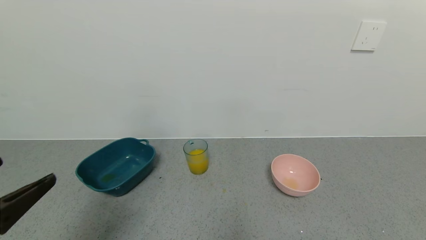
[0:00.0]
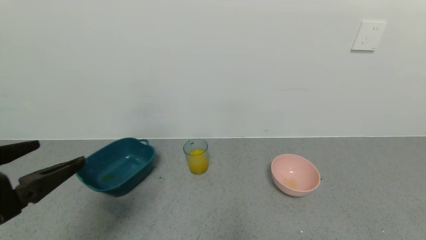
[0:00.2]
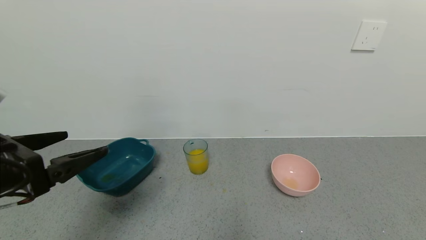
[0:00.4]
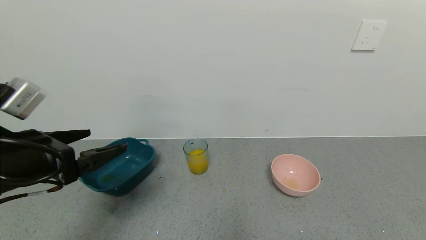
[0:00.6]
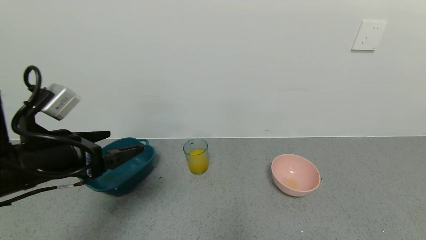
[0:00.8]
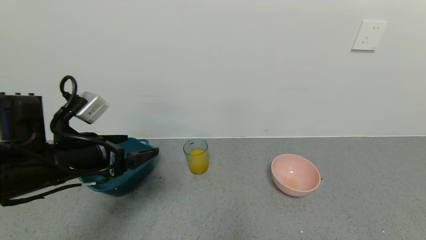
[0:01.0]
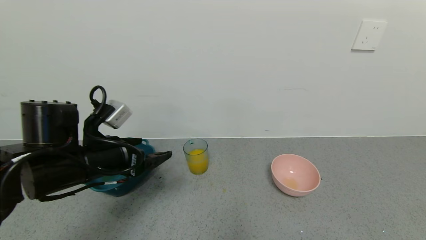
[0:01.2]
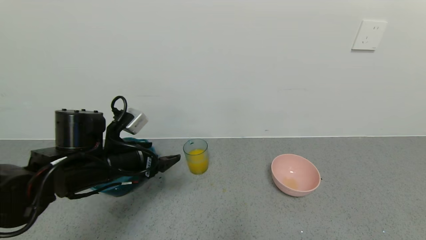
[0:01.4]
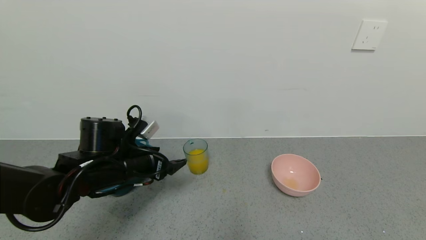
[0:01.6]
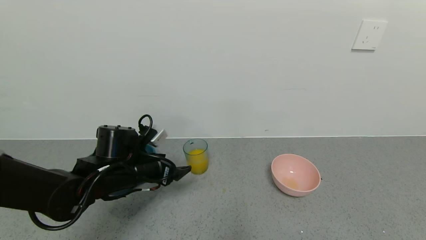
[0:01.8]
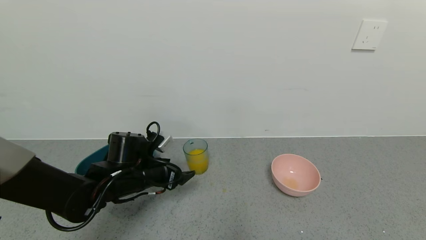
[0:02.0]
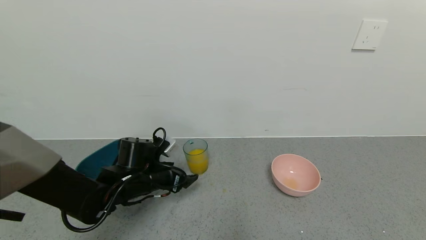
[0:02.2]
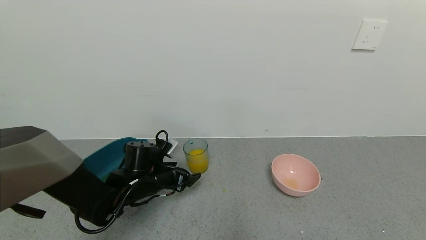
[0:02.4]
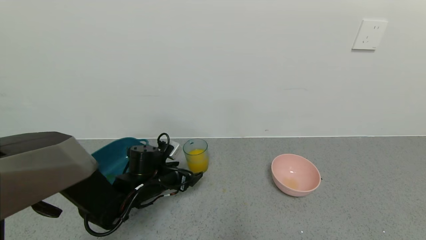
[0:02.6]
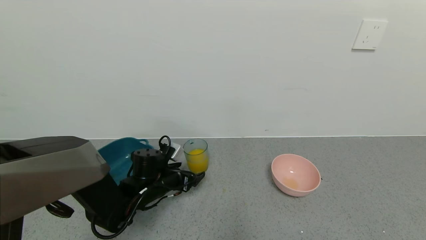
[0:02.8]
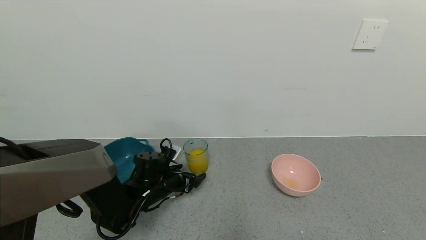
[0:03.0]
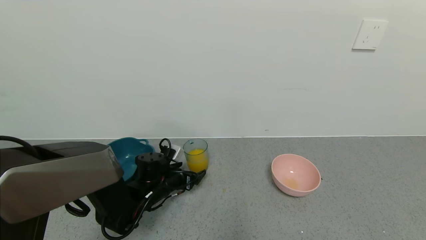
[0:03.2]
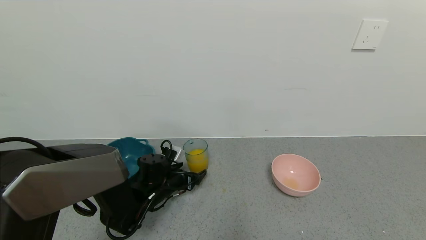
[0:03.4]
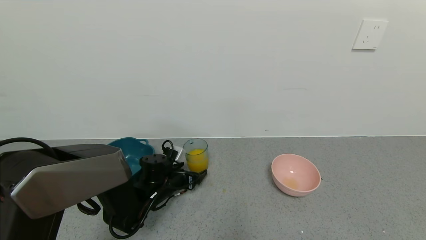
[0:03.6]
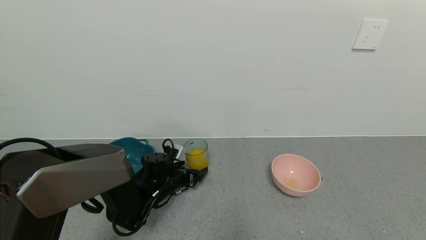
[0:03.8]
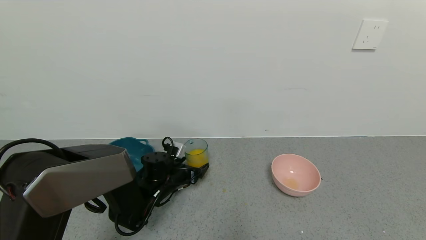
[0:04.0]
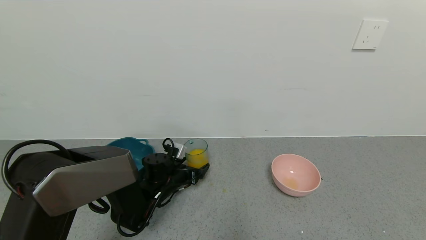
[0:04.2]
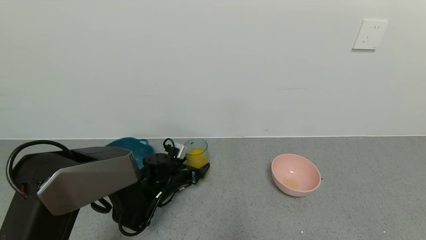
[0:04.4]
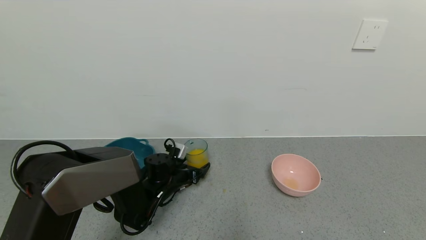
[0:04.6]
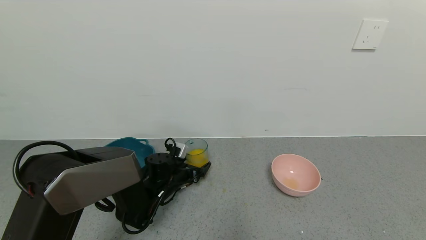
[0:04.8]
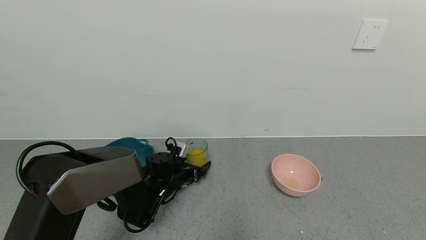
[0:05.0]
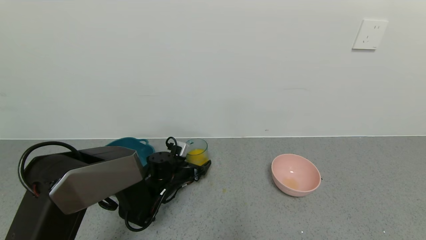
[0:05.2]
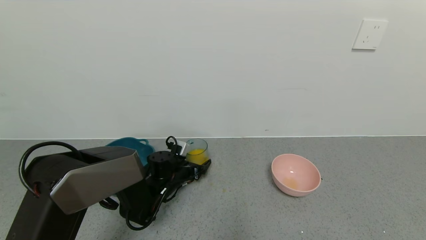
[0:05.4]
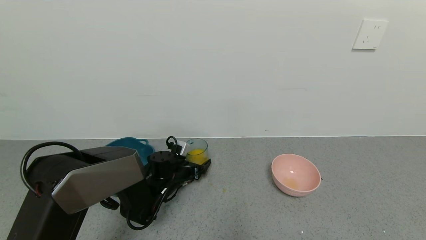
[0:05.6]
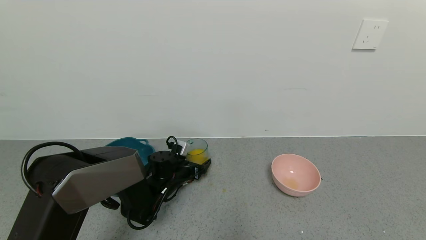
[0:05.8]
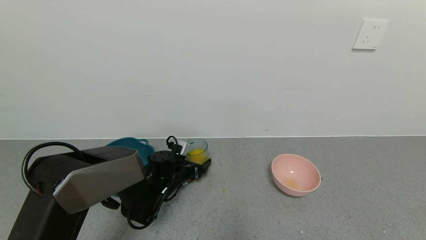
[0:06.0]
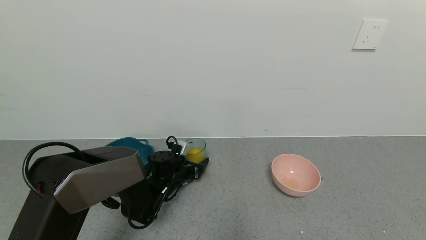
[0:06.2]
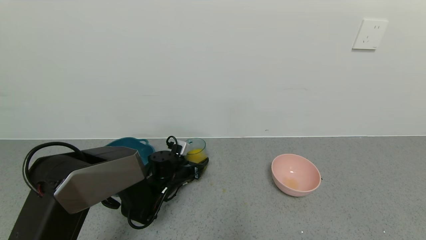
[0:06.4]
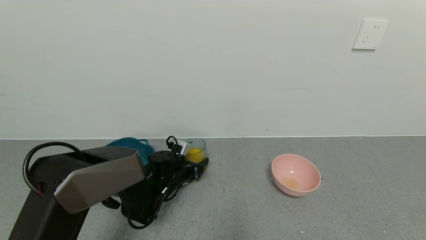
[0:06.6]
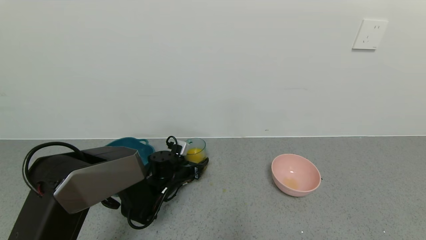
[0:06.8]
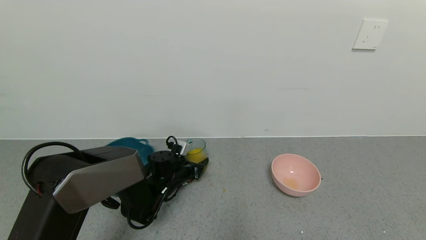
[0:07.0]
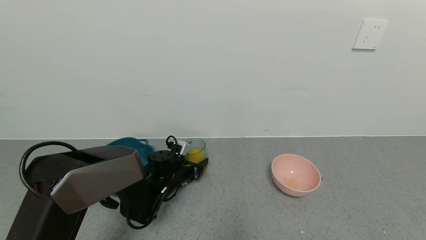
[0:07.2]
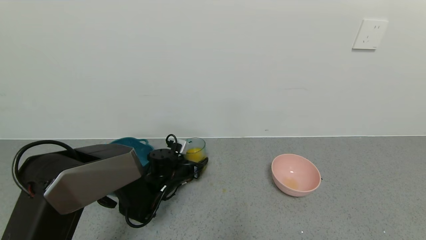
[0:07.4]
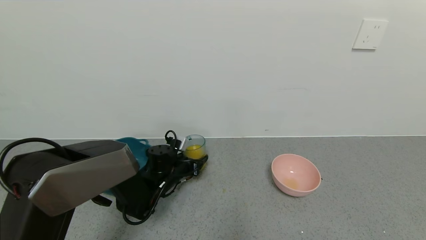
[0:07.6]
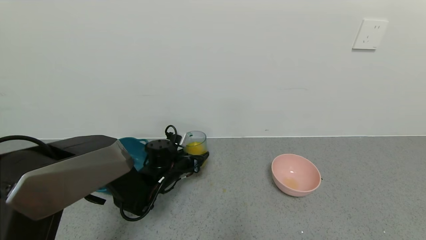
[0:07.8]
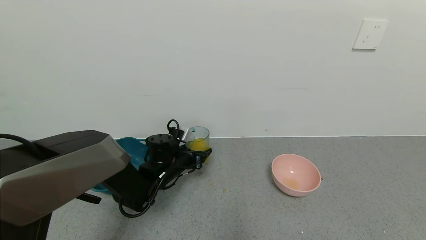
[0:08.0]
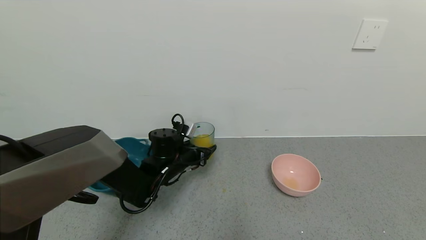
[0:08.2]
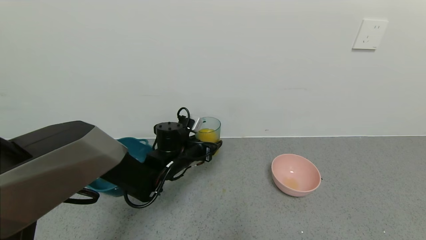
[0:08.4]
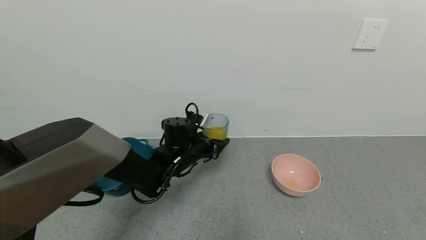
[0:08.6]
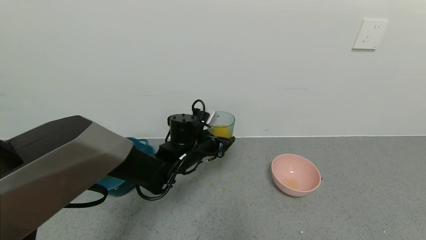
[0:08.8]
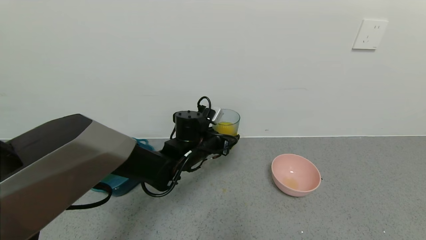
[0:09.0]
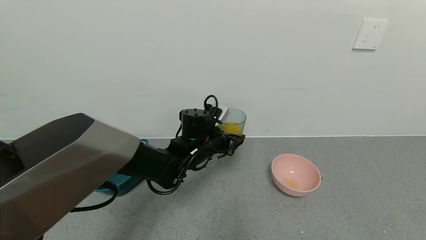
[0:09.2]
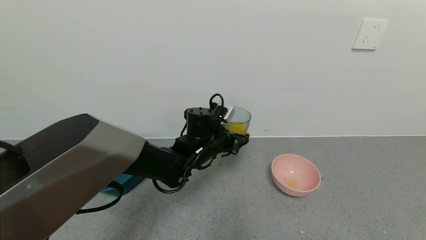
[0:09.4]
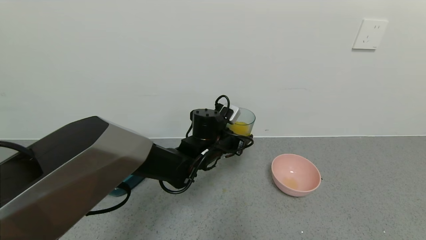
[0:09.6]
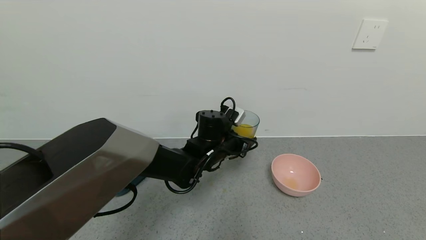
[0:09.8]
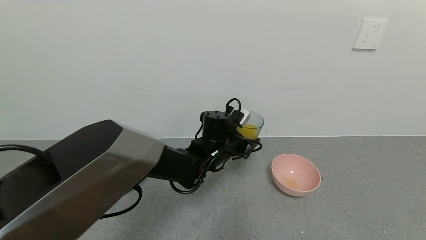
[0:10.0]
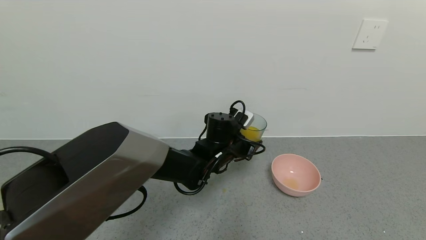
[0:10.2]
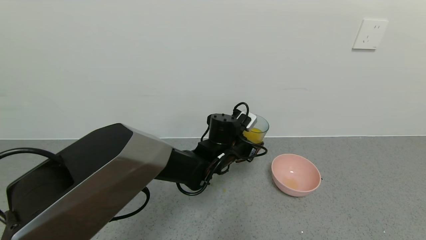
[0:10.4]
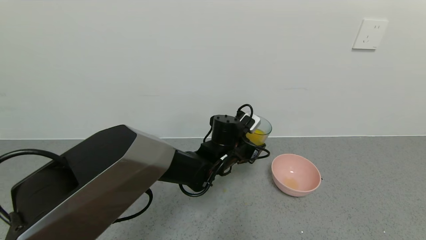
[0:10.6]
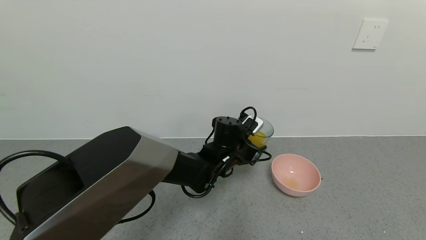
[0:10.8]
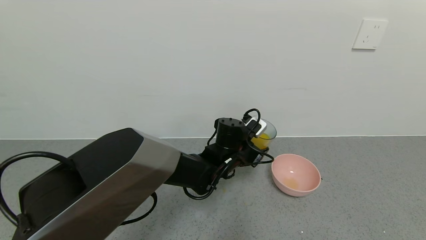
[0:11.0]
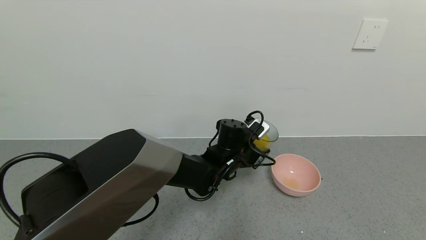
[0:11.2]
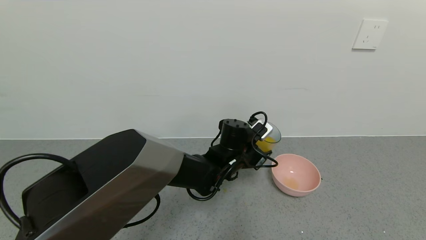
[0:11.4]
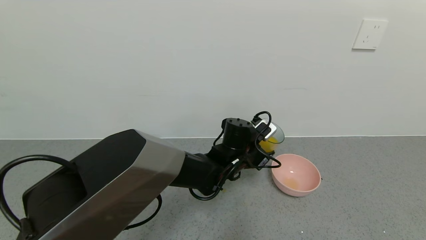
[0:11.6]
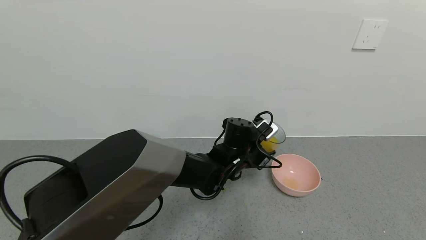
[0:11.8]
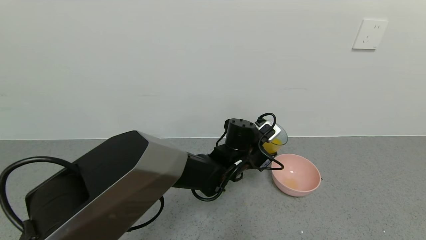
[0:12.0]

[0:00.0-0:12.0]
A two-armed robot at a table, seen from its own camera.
Task of the whole recording: use a gripper to pick up the cup and pour the liquid into a bowl or tray.
Step, 0:00.0 to 0:06.4: Grasp the glass of orange juice with the left gripper.
0:00.0 to 0:01.6: The left gripper travels forward and downward by approximately 25 cm.
0:01.6 to 0:03.0: The left gripper shifts about 10 cm downward.
0:03.0 to 0:06.0: The grippers stay close to where they were, moving slightly.
0:06.0 to 0:07.6: The left gripper closes its fingers.
0:07.6 to 0:09.0: The left gripper is displaced upward and to the right by some 15 cm.
0:09.0 to 0:10.4: The left gripper is displaced to the right by roughly 5 cm.
0:10.4 to 0:12.0: The grippers make only small movements.

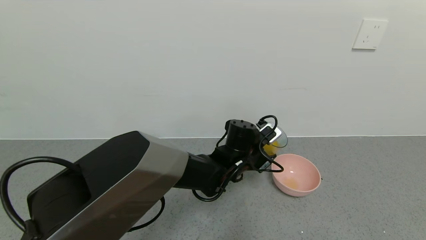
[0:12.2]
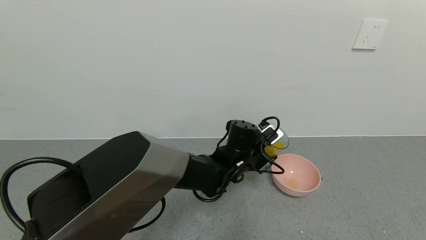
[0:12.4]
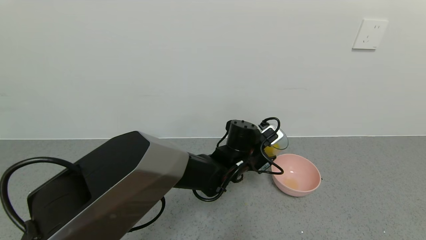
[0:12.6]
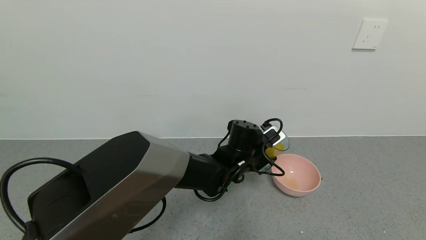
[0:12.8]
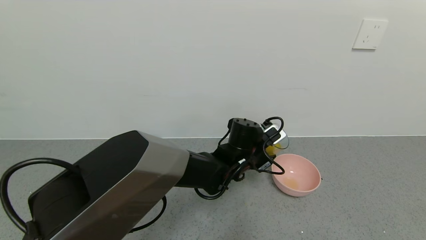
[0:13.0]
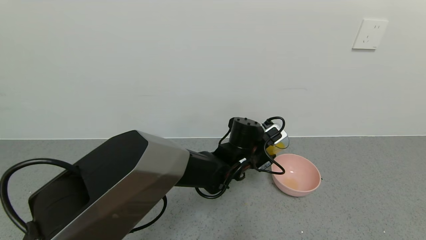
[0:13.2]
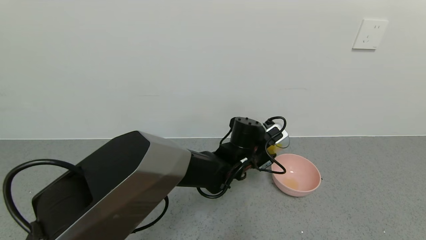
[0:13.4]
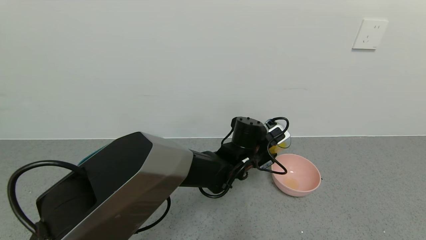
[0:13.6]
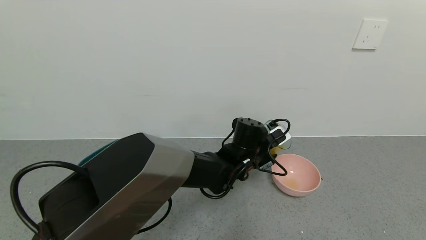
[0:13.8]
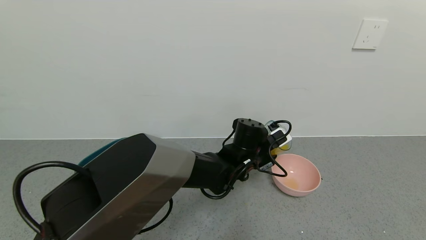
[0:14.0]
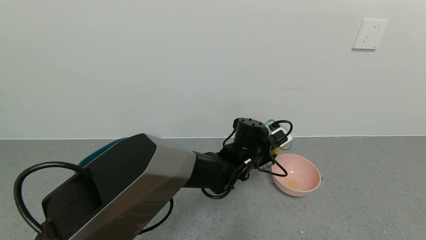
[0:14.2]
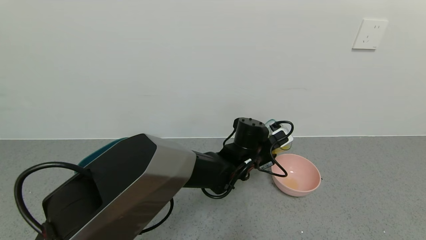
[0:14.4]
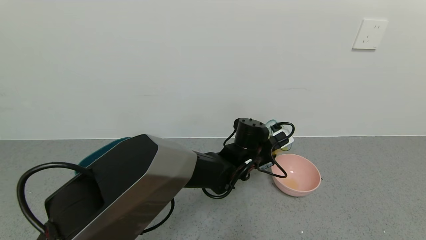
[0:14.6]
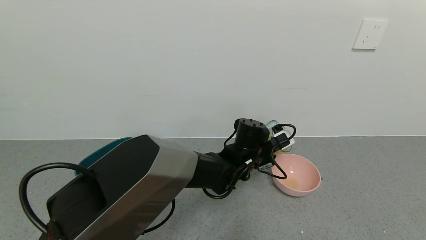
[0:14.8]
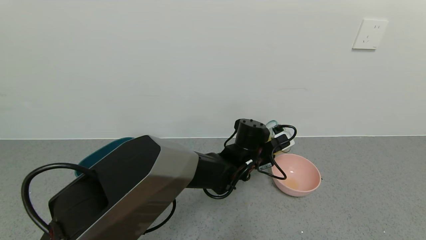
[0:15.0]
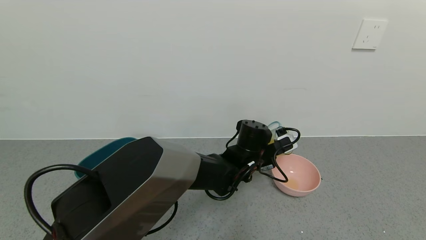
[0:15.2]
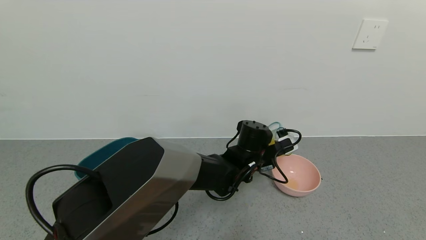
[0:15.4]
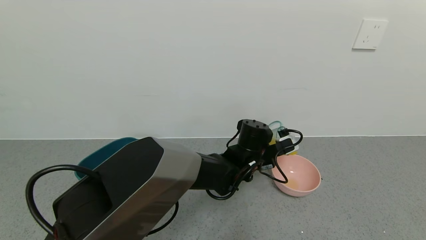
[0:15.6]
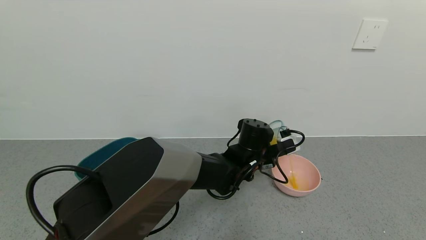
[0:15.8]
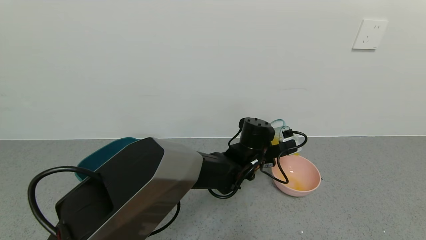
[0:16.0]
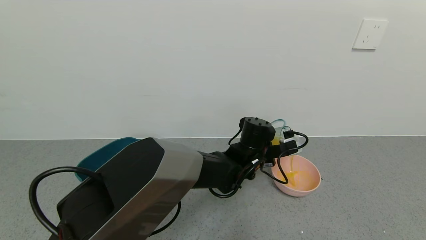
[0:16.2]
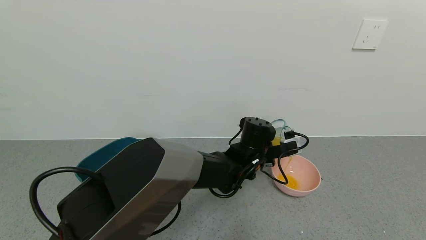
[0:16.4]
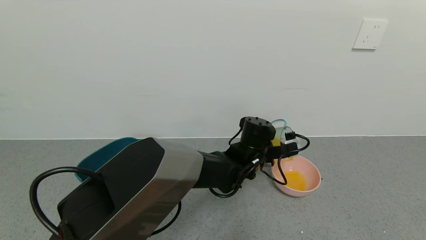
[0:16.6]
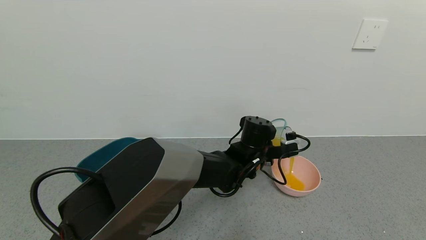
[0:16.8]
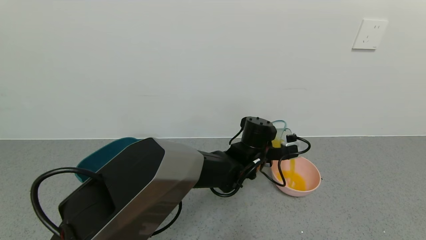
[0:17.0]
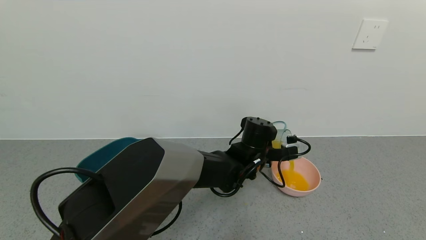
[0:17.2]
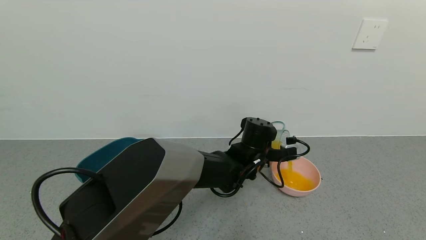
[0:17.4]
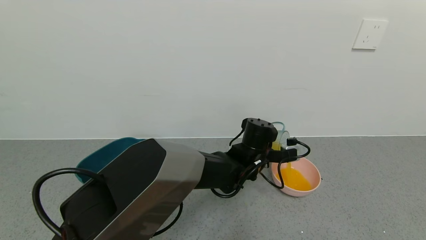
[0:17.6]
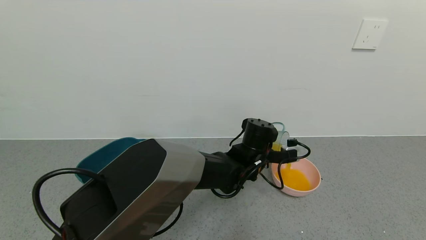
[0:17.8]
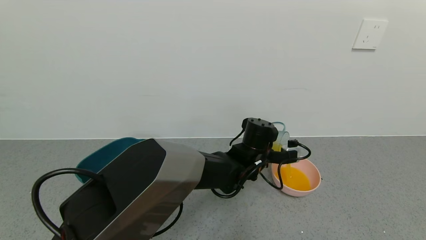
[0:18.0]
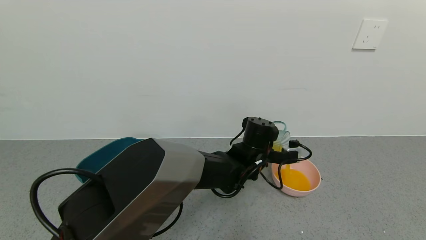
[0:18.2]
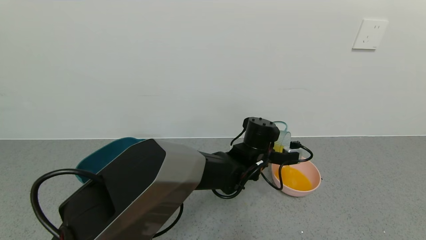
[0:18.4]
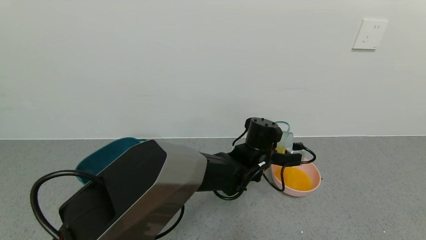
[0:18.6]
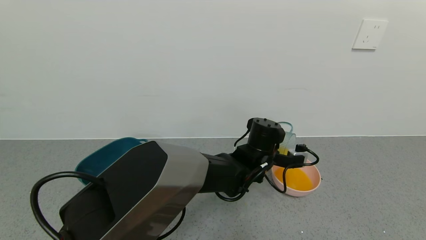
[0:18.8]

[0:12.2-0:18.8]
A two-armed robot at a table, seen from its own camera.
Task of the whole recording: use a gripper to pick up the cup and pour the liquid into a bowl or tray.
0:12.2 to 0:13.8: The grippers make only small movements.
0:13.8 to 0:15.4: The grippers make only small movements.
0:15.4 to 0:17.2: The grippers make only small movements.
0:17.2 to 0:18.8: The grippers stay close to where they were, moving slightly.
